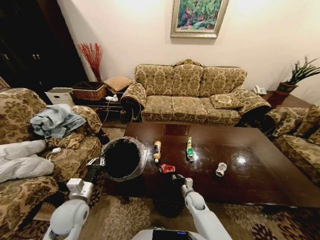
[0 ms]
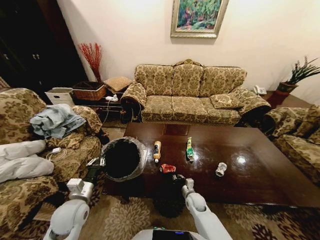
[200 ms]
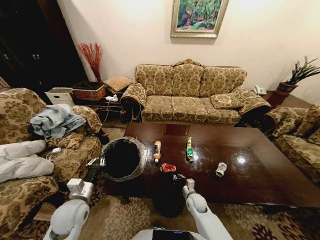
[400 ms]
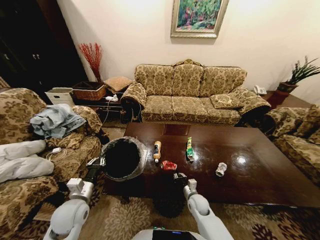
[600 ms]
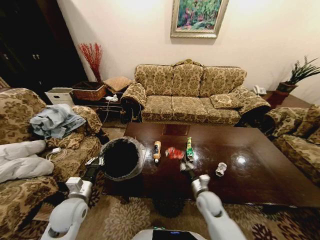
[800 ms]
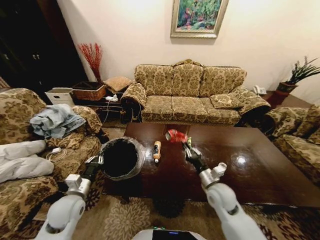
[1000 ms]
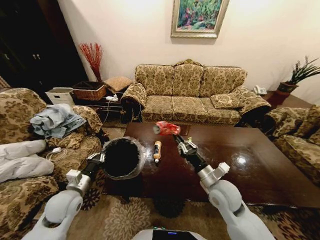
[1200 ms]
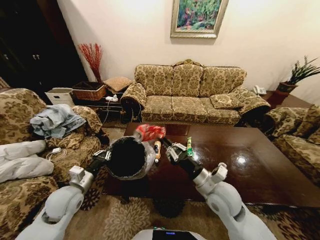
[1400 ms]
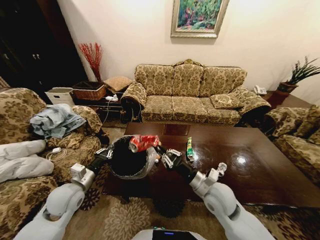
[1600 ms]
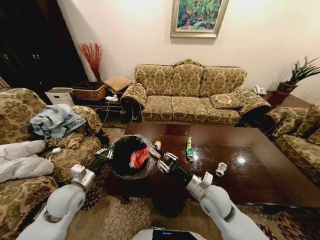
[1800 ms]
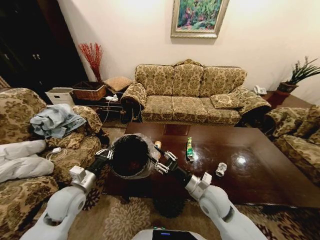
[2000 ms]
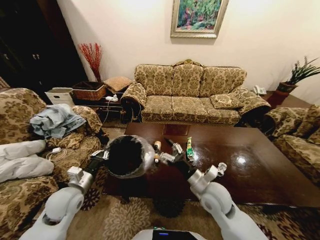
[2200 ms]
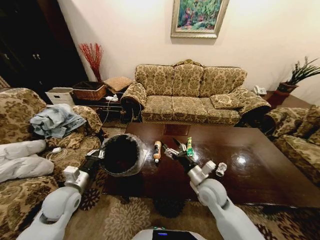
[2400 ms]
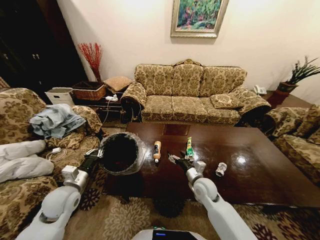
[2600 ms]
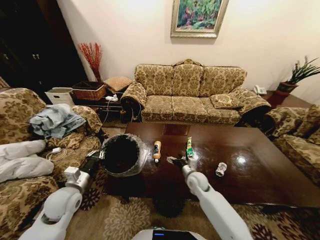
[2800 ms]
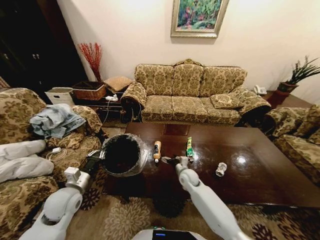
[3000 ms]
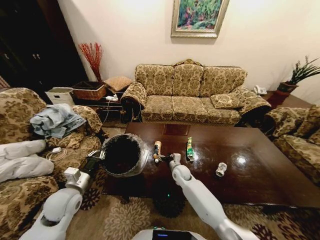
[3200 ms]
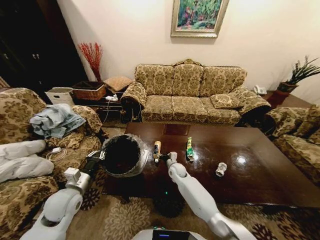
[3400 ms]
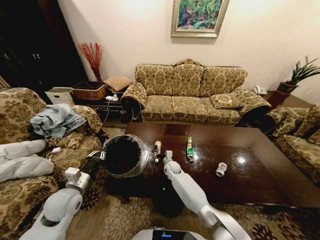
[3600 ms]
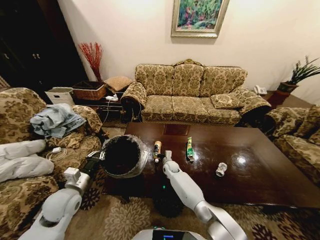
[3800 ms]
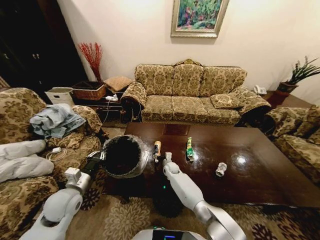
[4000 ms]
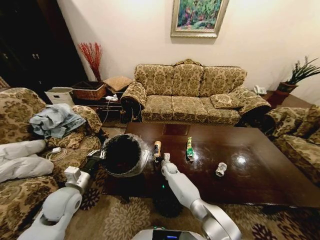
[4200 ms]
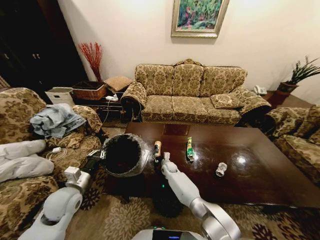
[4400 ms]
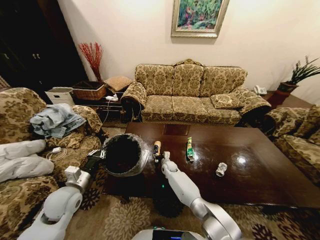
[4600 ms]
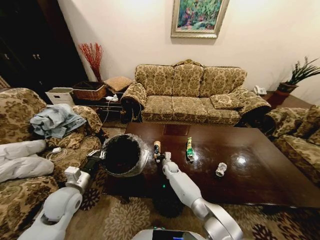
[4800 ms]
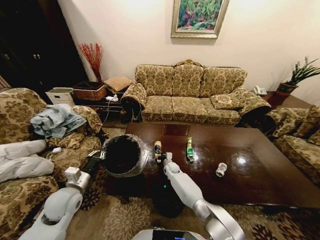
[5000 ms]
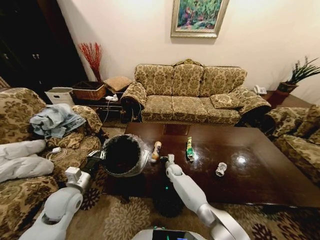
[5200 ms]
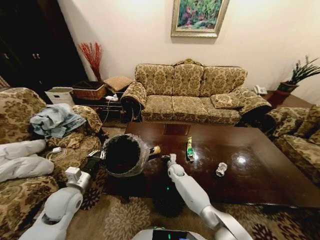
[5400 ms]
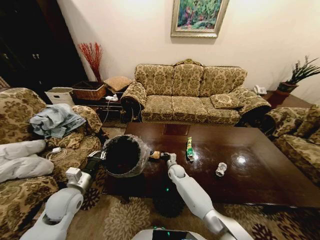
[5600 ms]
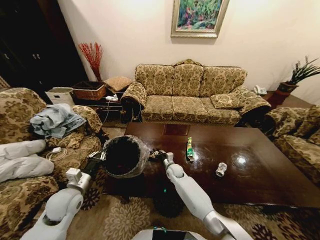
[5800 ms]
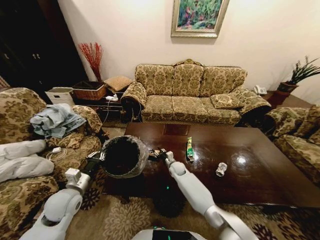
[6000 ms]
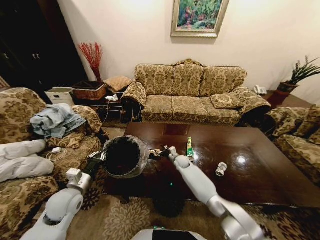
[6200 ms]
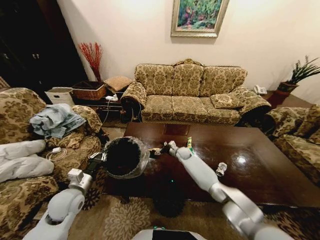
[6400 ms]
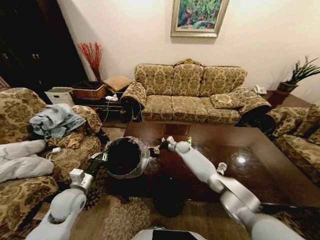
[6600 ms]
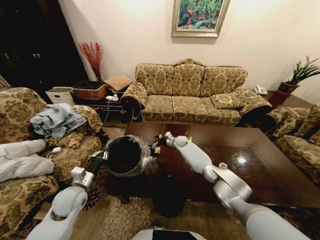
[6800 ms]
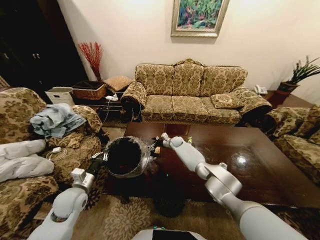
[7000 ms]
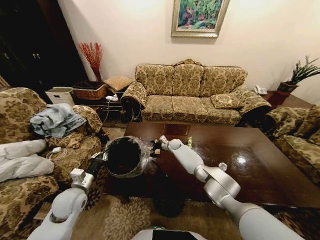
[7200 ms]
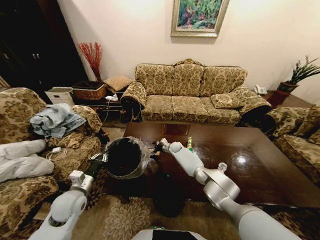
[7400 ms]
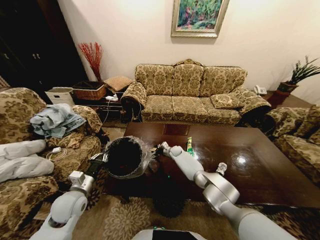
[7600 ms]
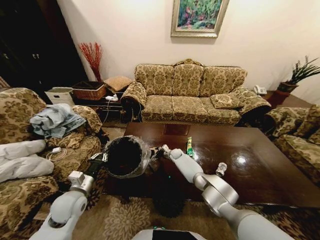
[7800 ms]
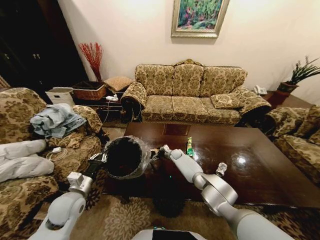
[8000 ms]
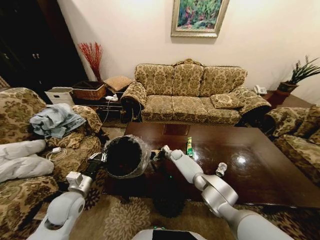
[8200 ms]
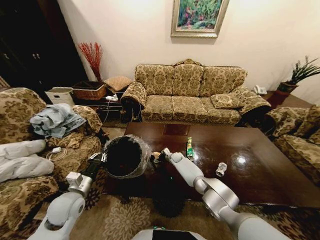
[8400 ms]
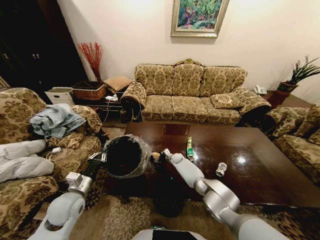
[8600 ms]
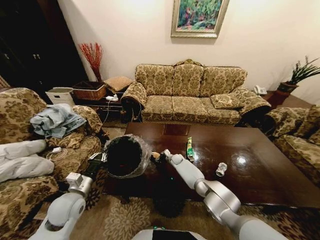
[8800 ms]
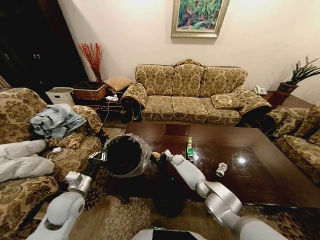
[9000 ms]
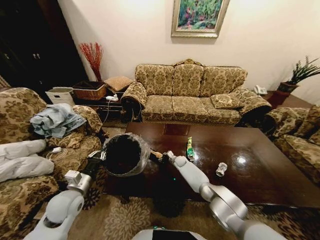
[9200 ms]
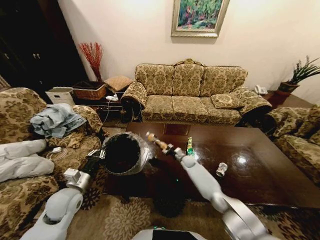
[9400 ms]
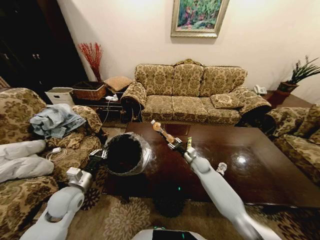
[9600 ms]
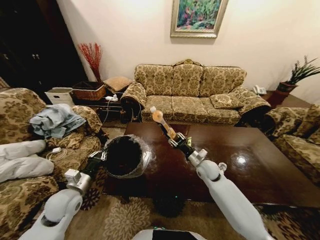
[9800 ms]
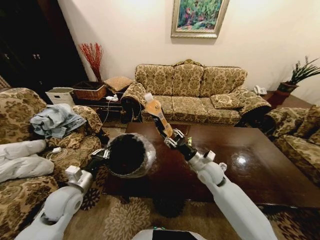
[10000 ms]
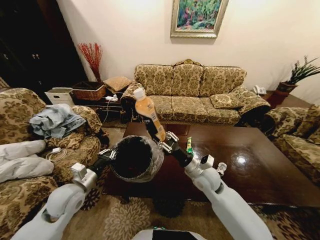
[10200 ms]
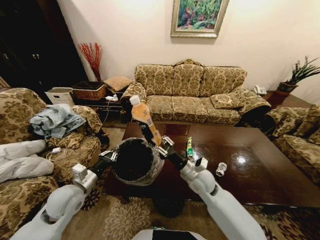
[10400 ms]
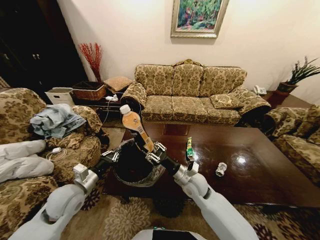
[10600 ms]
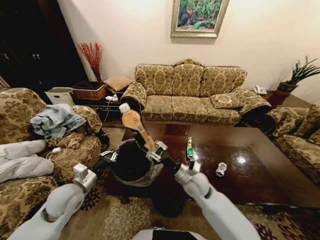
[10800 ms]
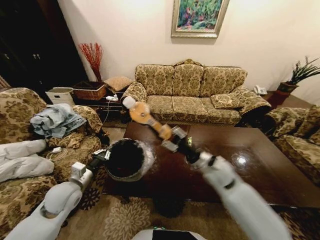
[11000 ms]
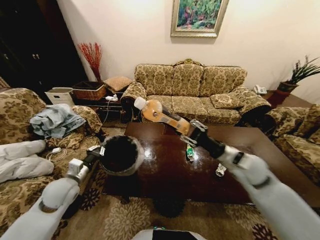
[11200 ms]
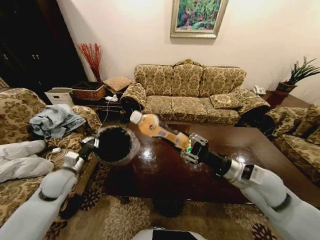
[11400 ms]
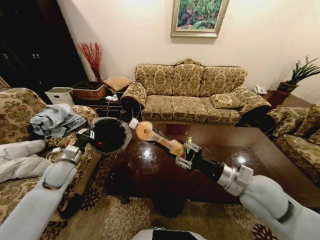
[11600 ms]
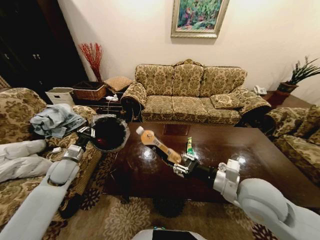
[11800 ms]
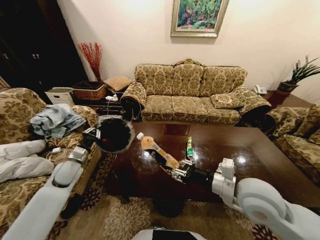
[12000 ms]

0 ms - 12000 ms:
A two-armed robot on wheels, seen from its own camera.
Task of the whole recording: Move to the front of the table and place the trash on the table into the trash bin.
0 ms - 1600 ms: The left gripper shifts by roughly 5 cm. Meanwhile the right gripper goes approximately 25 cm upward.
1600 ms - 3000 ms: The right gripper shifts approximately 20 cm downward and forward, and opens.
3000 ms - 4400 ms: The right gripper heads to the left, forward and downward, covering some 15 cm.
4400 ms - 6000 ms: The right gripper ends up some 5 cm from where it was, and closes up.
6000 ms - 7600 ms: The right gripper goes approximately 10 cm forward, and opens.
7600 ms - 9000 ms: The right gripper changes place by some 5 cm, and closes.
9000 ms - 10400 ms: The right gripper shifts roughly 30 cm upward and backward.
10400 ms - 12000 ms: The right gripper shifts approximately 20 cm upward, backward and to the right, while the left gripper goes approximately 15 cm forward and to the left.

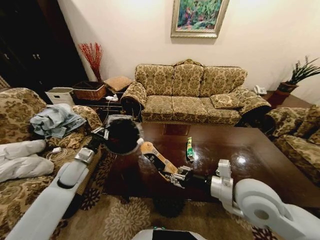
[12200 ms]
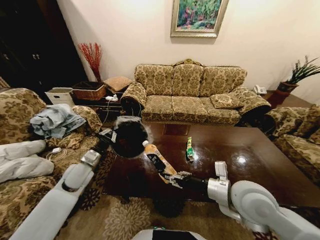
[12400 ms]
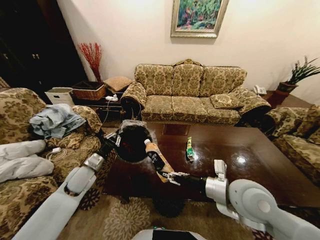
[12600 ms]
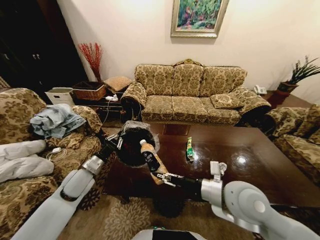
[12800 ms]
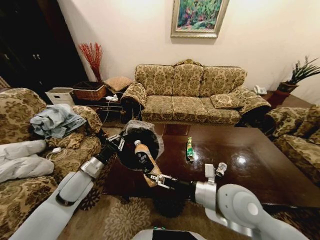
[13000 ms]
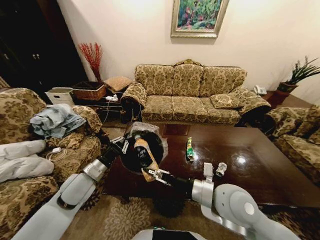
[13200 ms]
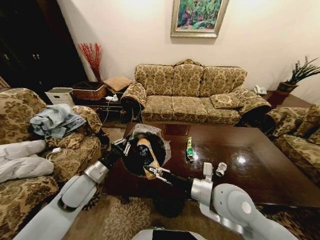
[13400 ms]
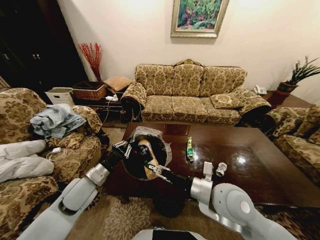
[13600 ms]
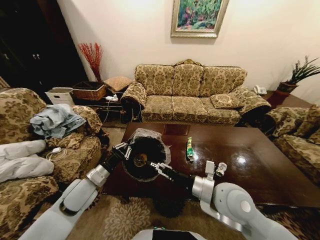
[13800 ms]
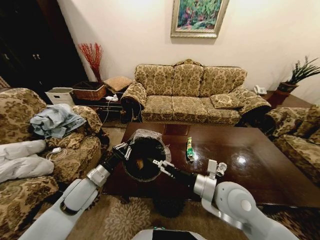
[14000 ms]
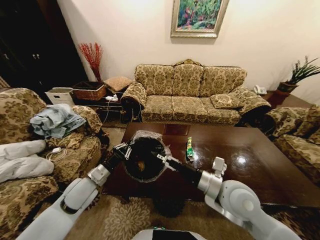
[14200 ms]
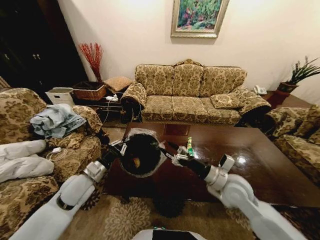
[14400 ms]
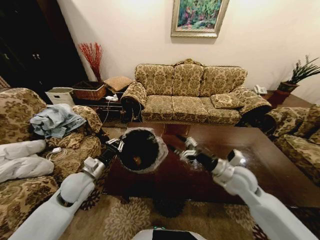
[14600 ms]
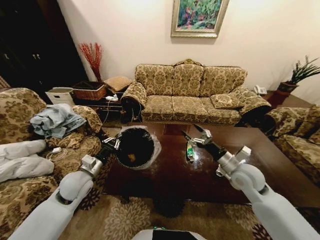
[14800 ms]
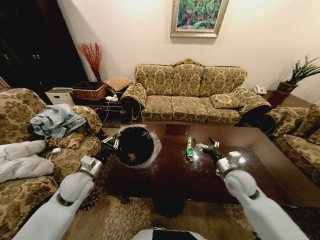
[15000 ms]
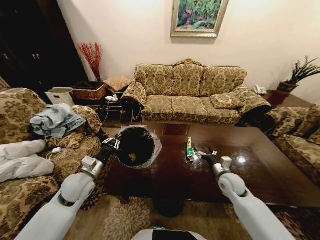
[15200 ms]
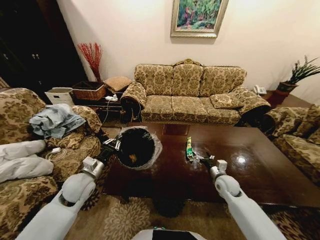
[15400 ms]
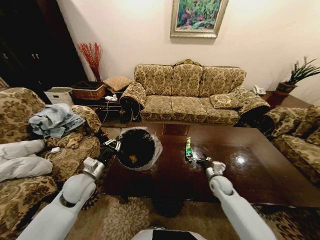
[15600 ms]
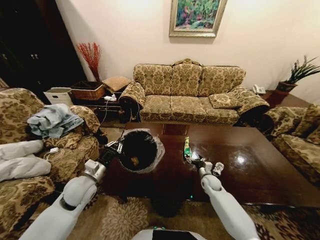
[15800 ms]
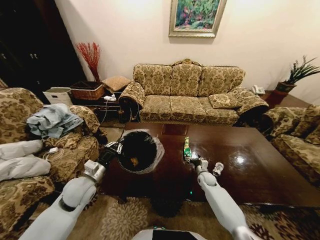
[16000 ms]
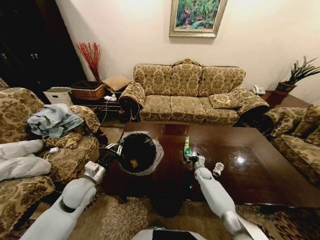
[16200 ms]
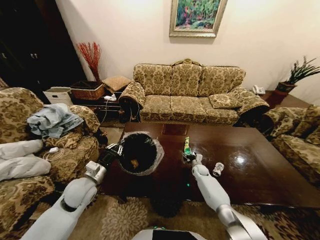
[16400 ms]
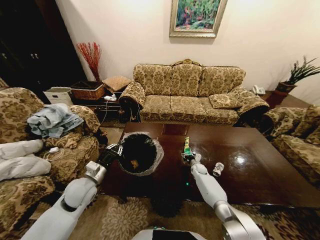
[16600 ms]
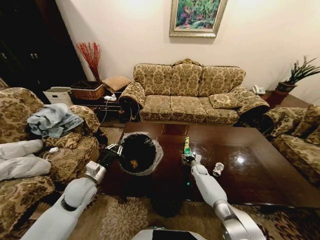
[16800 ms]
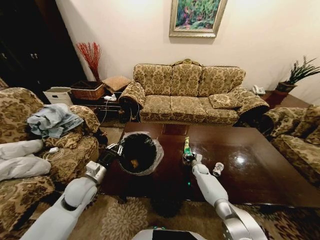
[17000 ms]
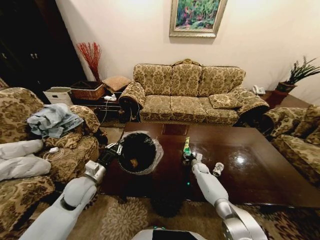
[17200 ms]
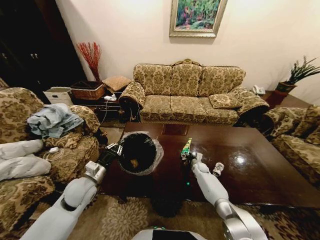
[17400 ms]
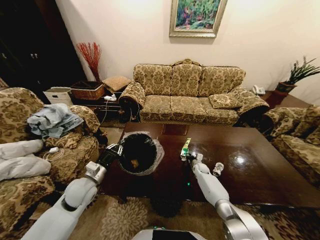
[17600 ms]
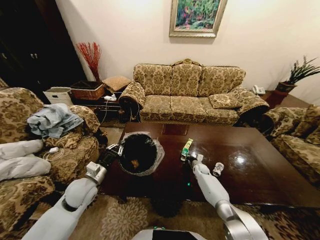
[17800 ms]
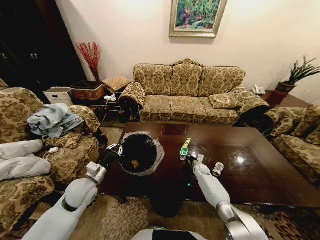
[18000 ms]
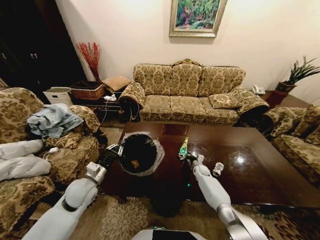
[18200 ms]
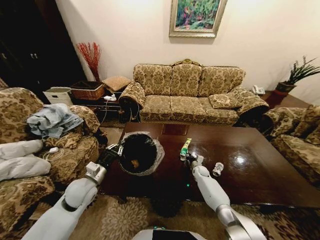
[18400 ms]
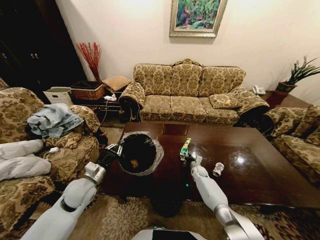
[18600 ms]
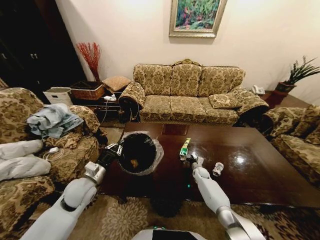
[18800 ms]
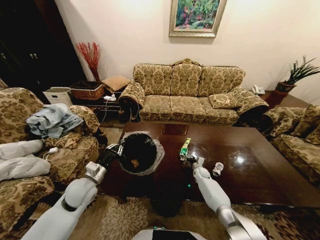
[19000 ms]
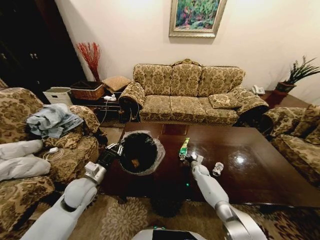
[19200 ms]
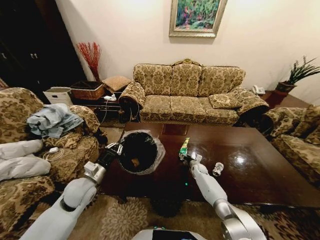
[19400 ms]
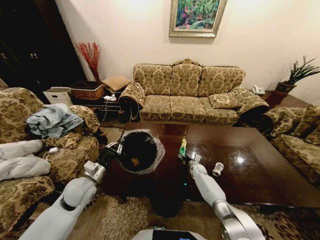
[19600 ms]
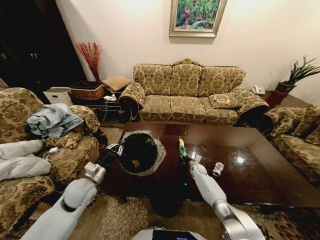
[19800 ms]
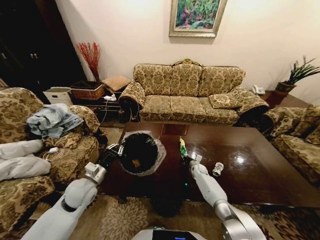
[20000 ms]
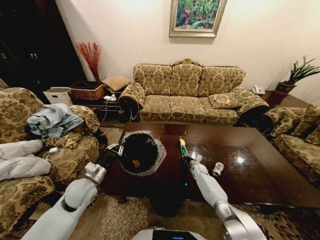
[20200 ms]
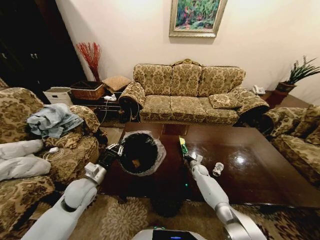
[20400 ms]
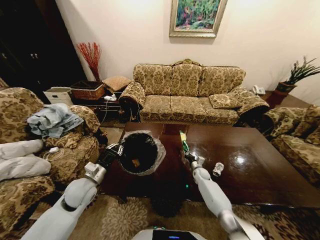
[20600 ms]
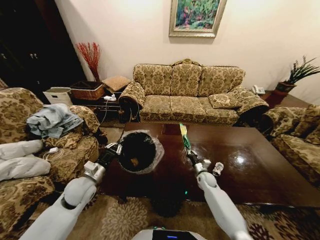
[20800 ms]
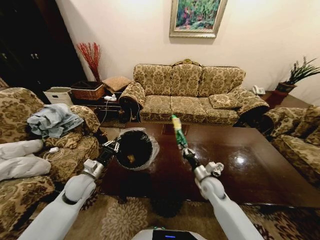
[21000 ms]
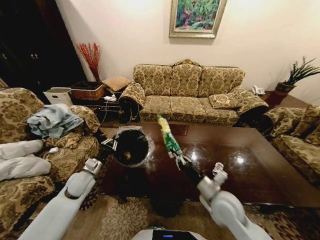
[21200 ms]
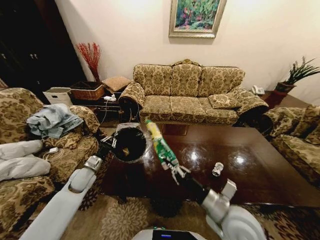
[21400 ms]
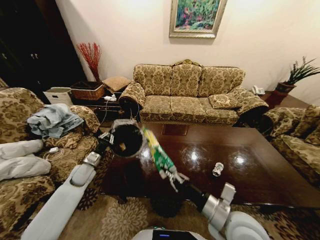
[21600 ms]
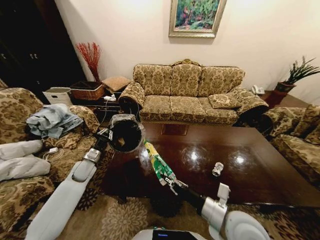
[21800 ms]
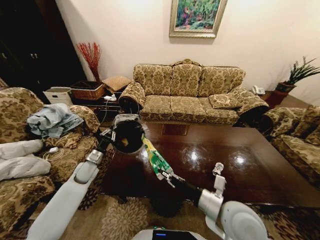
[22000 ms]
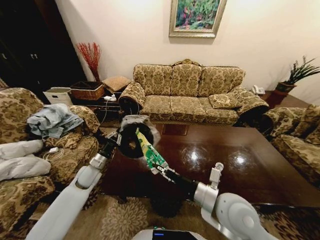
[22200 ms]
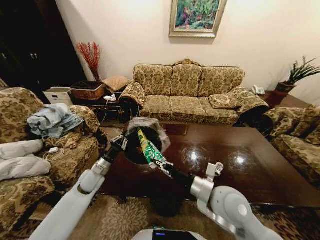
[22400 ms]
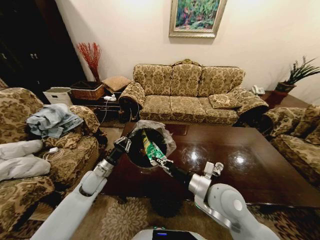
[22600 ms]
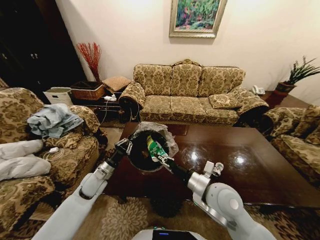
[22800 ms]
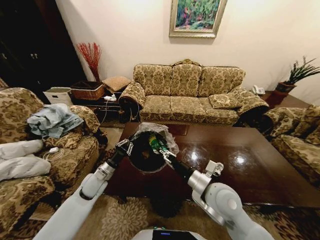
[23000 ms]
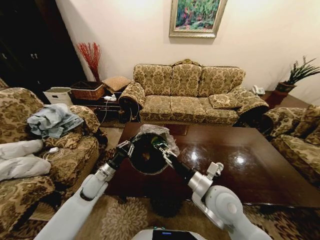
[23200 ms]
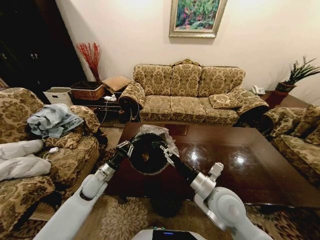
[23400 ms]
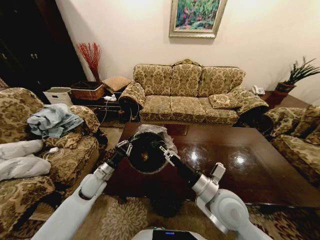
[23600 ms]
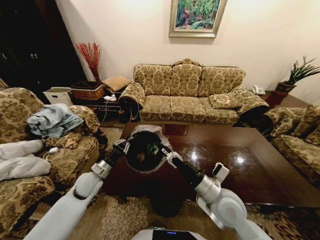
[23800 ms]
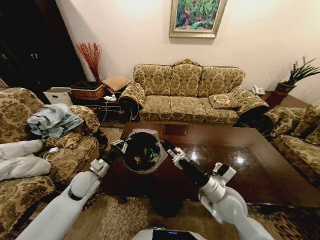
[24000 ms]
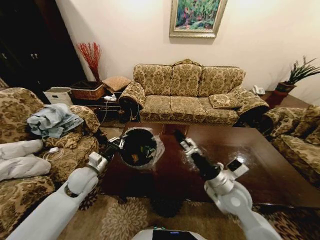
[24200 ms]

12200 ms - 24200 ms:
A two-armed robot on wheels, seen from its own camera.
Task of the whole recording: Move to the front of the table and place the trash on the table into the trash bin.
12200 ms - 13800 ms: The right gripper shifts approximately 5 cm to the left, and opens up. The left gripper goes roughly 10 cm to the right and backward.
13800 ms - 15200 ms: The right gripper heads downward, to the right and forward, covering roughly 25 cm.
15200 ms - 16600 ms: The right gripper heads downward and forward, covering approximately 25 cm.
16600 ms - 18200 ms: The right gripper closes up.
18200 ms - 19800 ms: The right gripper opens up.
19800 ms - 21200 ms: The left gripper moves about 5 cm. Meanwhile the right gripper is displaced backward and upward by about 35 cm, and closes up.
21200 ms - 22600 ms: The right gripper goes about 10 cm upward.
22600 ms - 24200 ms: The left gripper shifts about 5 cm upward. Meanwhile the right gripper moves roughly 5 cm, and opens up.
